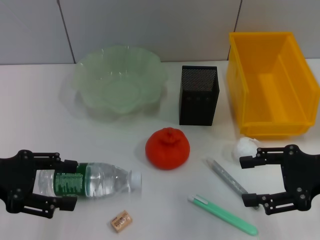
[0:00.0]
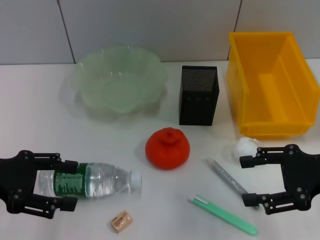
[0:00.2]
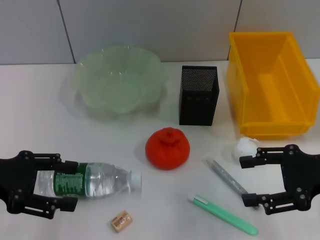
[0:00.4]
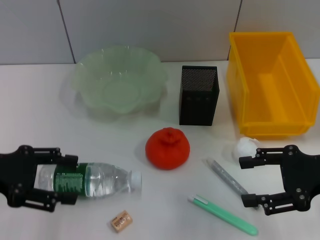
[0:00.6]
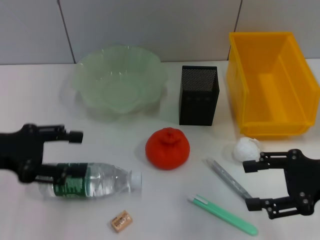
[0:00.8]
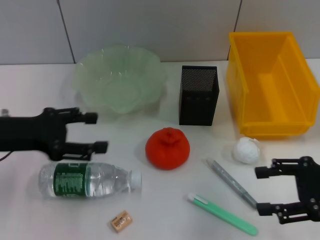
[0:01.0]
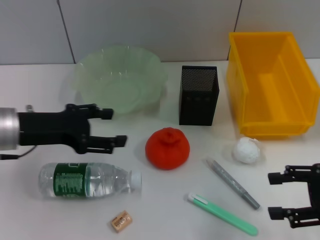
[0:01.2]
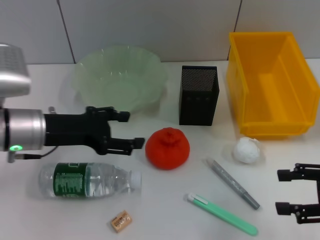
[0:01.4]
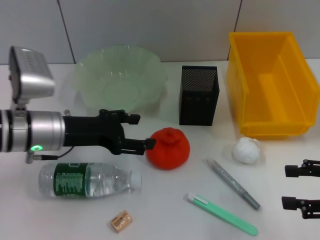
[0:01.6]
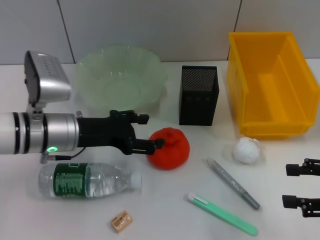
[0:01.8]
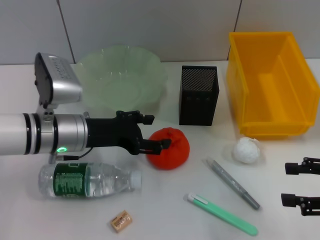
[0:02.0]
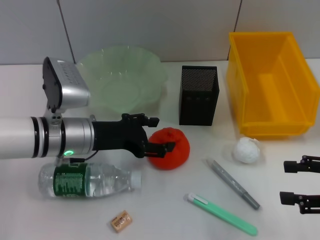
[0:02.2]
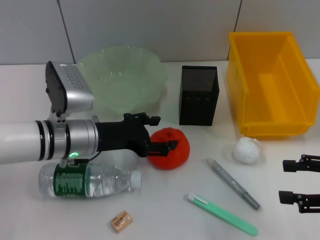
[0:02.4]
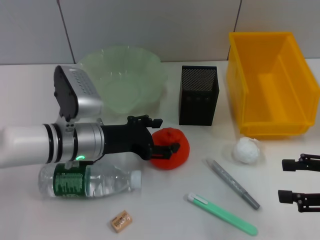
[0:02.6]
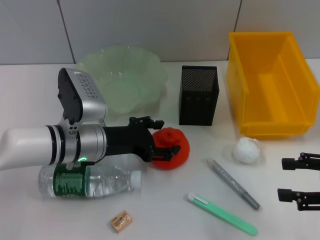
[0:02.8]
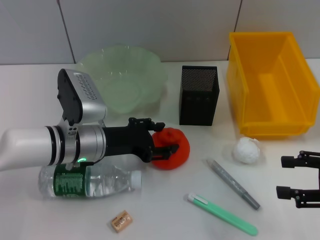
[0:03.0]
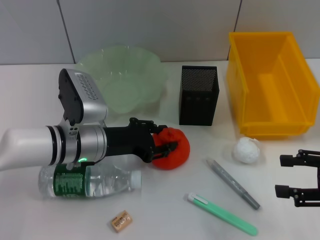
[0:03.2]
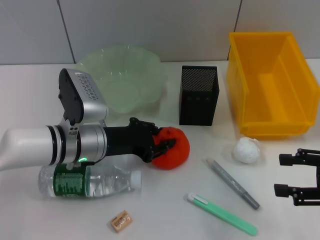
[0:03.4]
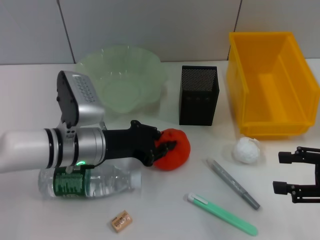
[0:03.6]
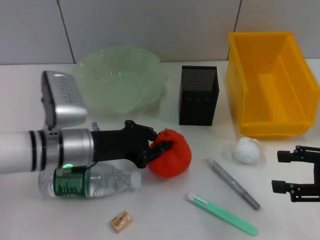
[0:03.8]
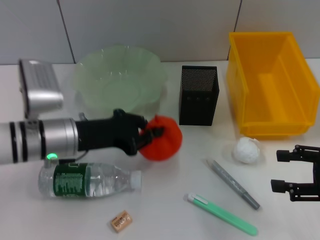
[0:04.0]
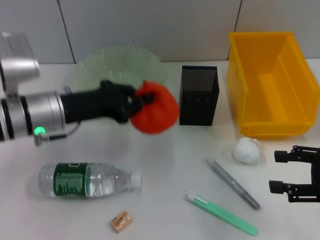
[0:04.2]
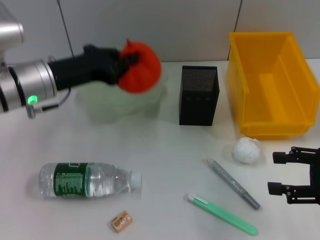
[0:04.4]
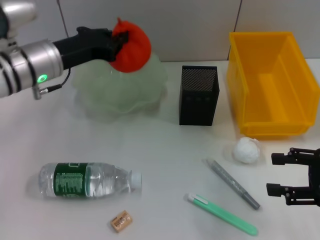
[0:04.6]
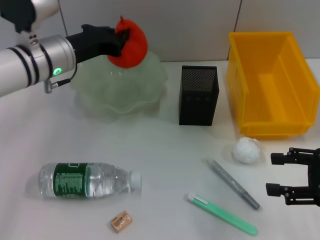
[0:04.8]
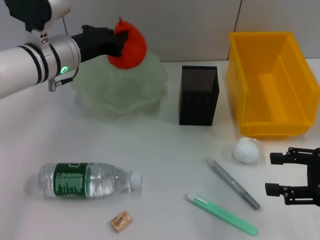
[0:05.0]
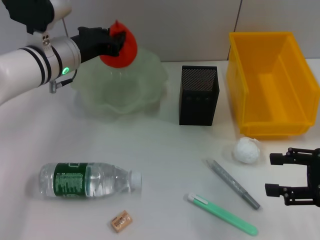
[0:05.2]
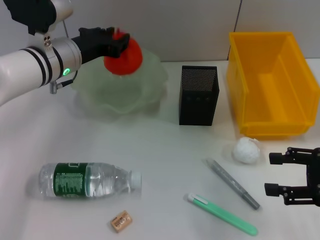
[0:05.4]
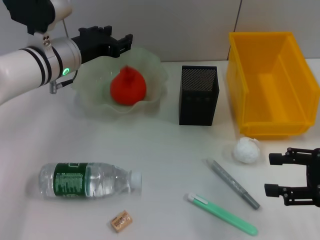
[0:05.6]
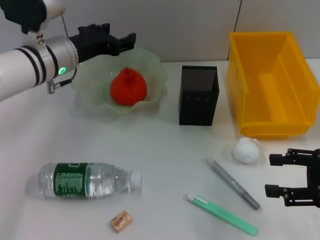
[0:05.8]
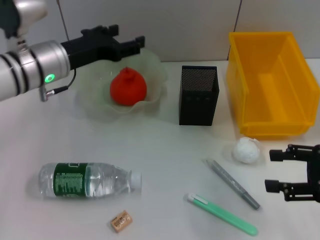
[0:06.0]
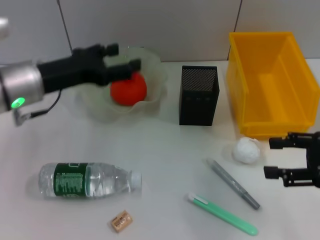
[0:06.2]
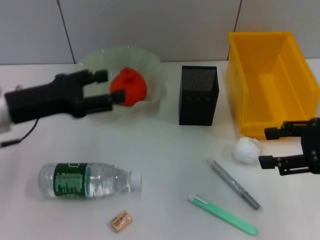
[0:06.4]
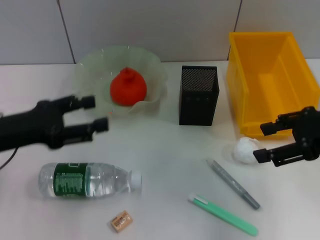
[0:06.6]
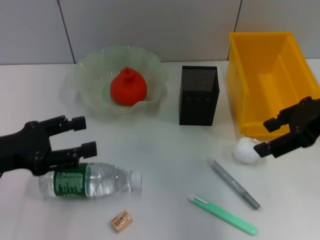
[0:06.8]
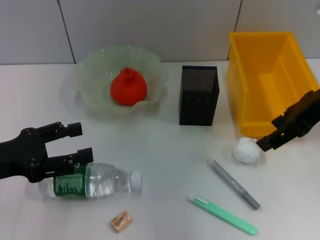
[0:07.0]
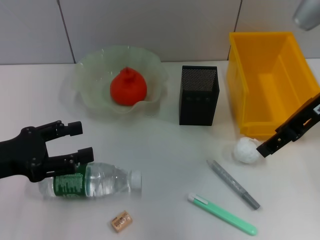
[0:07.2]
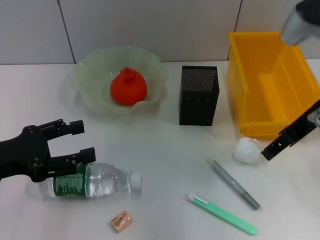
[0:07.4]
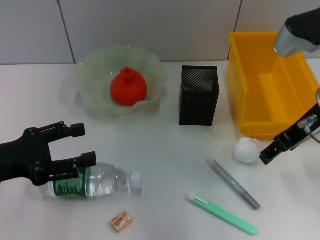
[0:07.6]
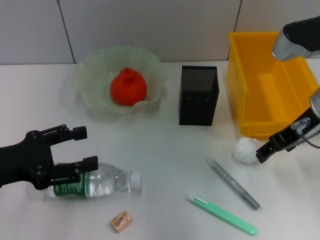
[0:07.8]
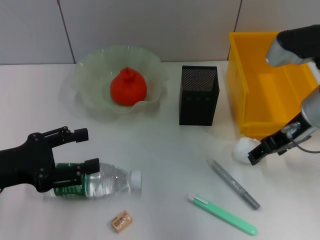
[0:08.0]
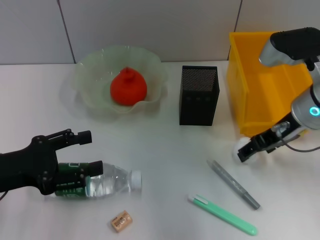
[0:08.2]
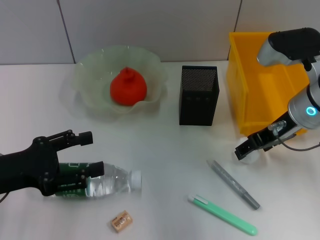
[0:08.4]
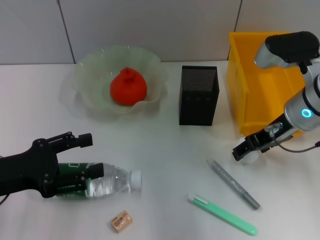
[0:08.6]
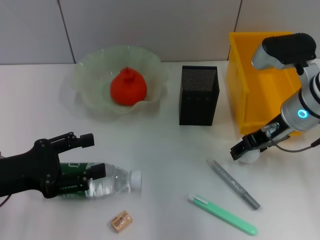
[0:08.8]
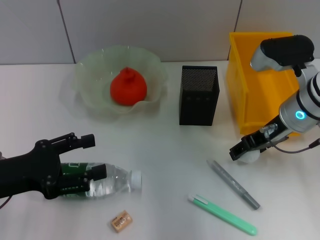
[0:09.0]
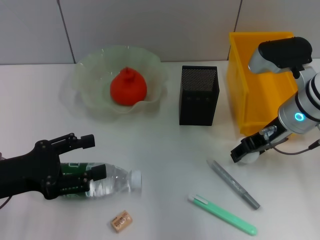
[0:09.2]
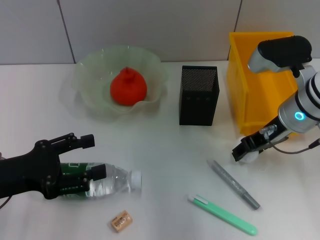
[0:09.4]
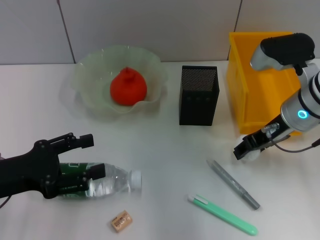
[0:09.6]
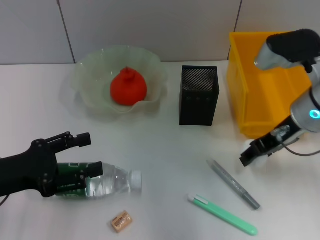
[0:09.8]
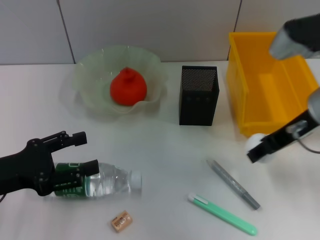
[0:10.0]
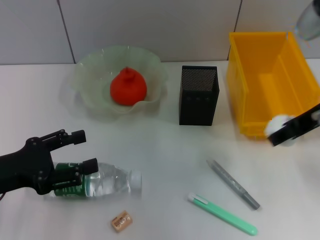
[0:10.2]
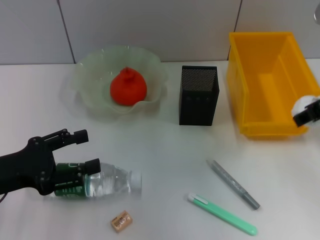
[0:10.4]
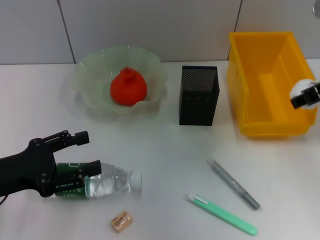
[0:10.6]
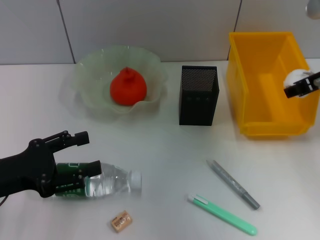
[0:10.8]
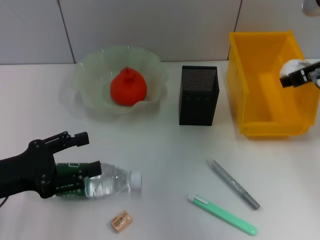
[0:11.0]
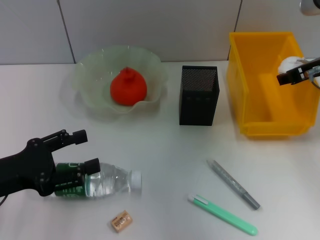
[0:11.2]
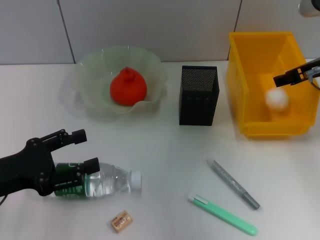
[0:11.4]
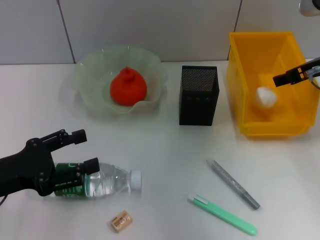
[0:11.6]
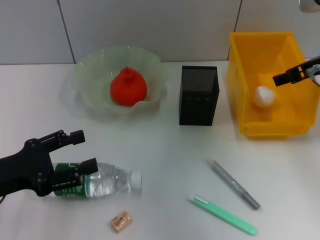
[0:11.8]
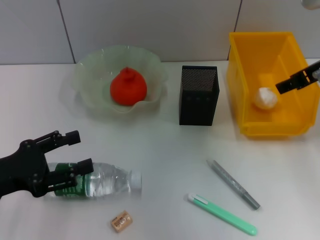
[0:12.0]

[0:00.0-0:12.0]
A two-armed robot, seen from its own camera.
Step, 0:00.0 to 0:03.4: Grab the orange with the left hand.
Step, 0:03.6 to 0:05.6: Place the orange into the fruit bowl with the left hand.
Step, 0:05.8 to 0:09.2: Grab the paper ball with the right hand.
Step, 0:09.4 to 0:11.6: Place the paper ball into the trash can with the right hand.
0:00.0 to 0:01.6: The right gripper travels to the right by some 5 cm. The left gripper is displaced to the right and forward by some 15 cm.
0:01.6 to 0:03.0: The left gripper shifts about 5 cm to the right.
0:03.0 to 0:04.4: The left gripper travels upward and to the left by roughly 10 cm, and closes up.
0:04.4 to 0:06.0: The left gripper moves some 5 cm, and opens up.
0:06.0 to 0:07.6: The right gripper shifts some 15 cm to the left, forward and upward; the left gripper goes some 20 cm backward and to the left.
0:07.6 to 0:09.0: The right gripper goes some 5 cm downward.
0:09.0 to 0:10.4: The right gripper is displaced upward and backward by about 15 cm.
0:10.4 to 0:12.0: The right gripper opens up.

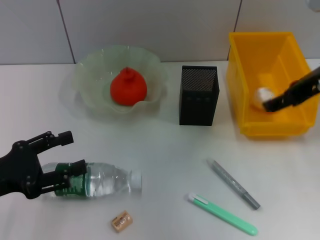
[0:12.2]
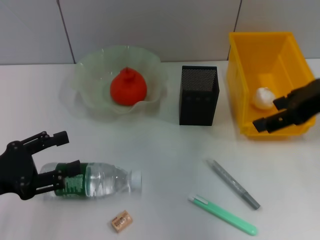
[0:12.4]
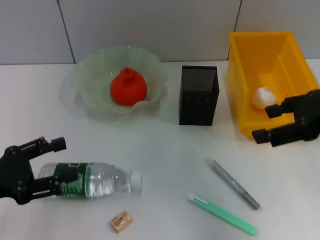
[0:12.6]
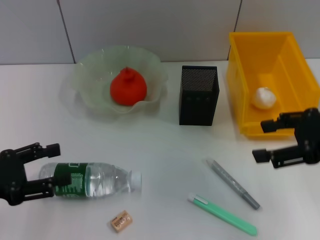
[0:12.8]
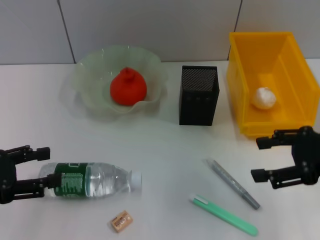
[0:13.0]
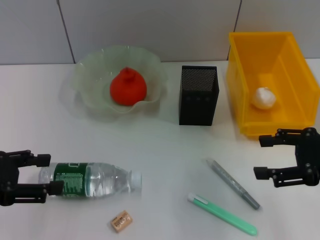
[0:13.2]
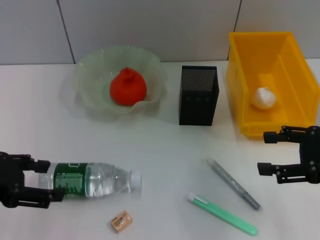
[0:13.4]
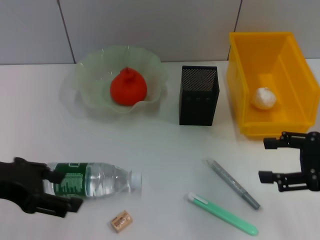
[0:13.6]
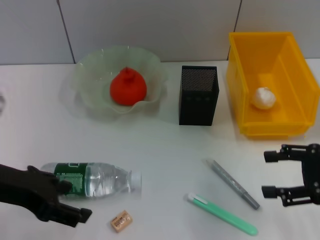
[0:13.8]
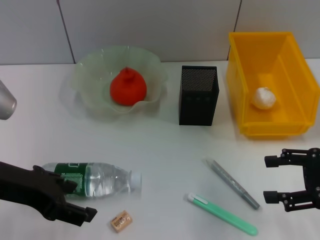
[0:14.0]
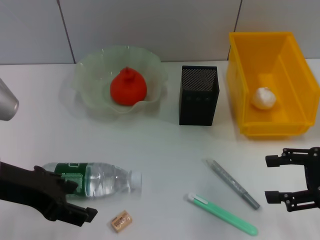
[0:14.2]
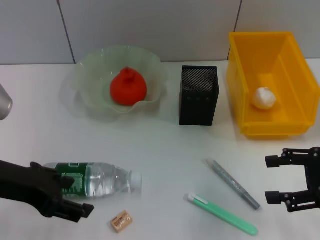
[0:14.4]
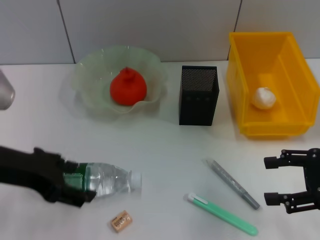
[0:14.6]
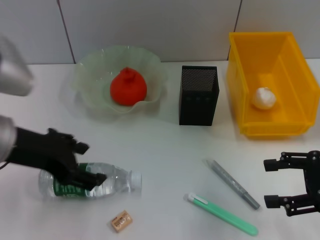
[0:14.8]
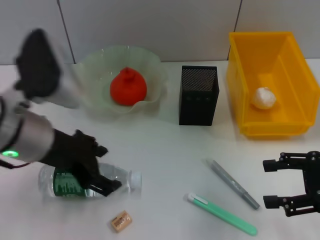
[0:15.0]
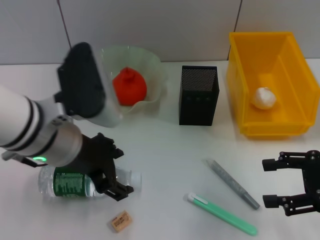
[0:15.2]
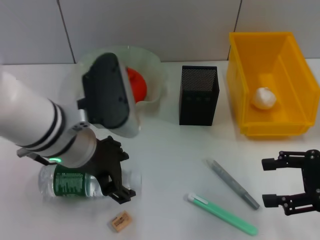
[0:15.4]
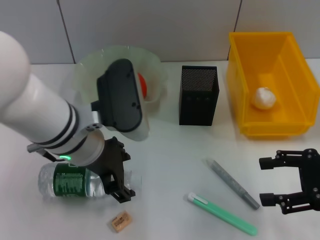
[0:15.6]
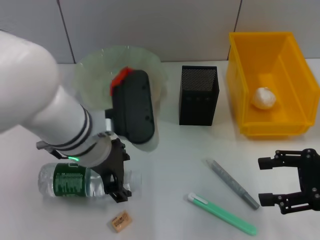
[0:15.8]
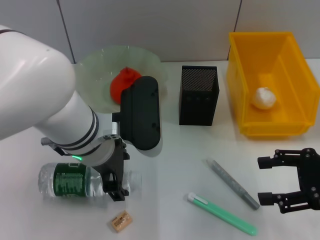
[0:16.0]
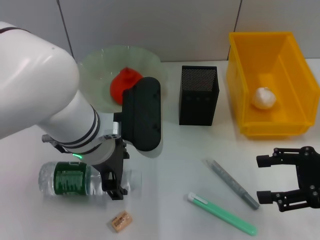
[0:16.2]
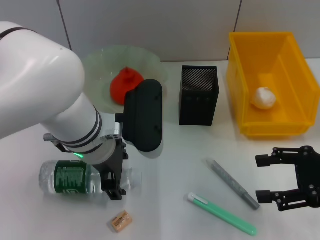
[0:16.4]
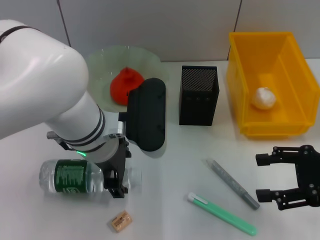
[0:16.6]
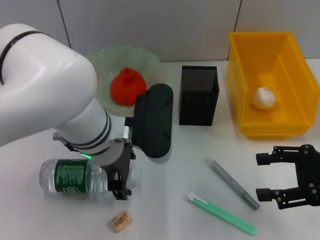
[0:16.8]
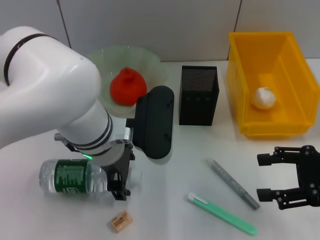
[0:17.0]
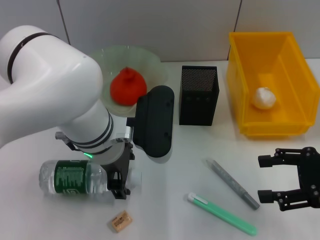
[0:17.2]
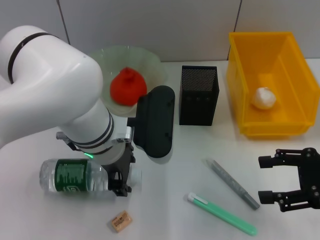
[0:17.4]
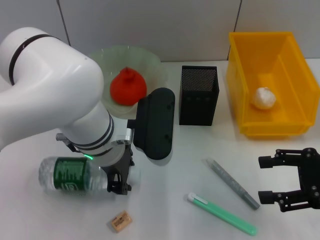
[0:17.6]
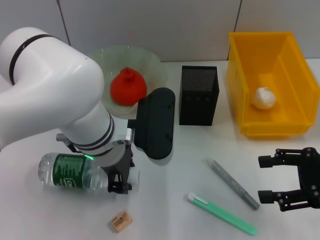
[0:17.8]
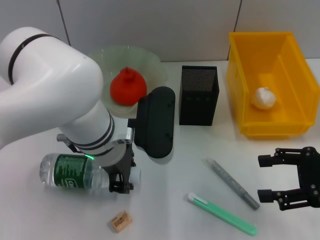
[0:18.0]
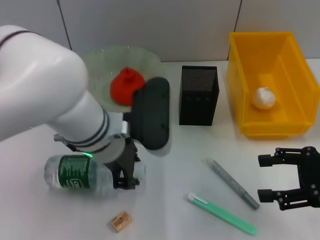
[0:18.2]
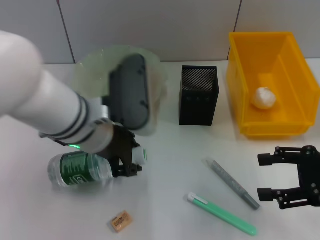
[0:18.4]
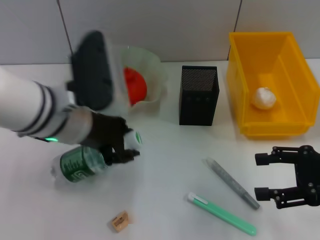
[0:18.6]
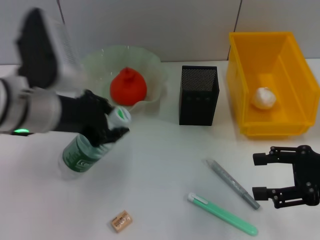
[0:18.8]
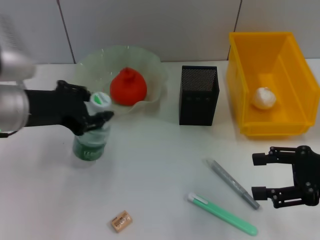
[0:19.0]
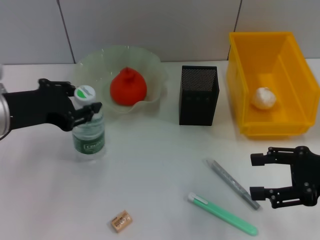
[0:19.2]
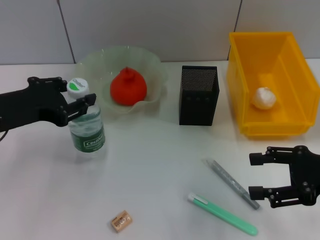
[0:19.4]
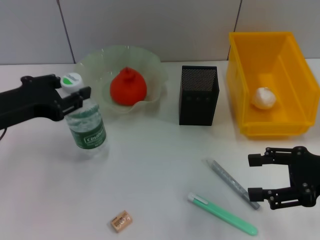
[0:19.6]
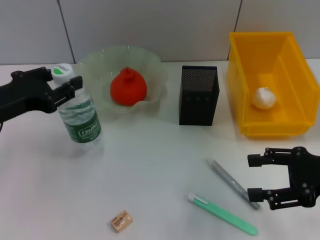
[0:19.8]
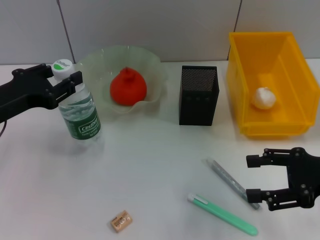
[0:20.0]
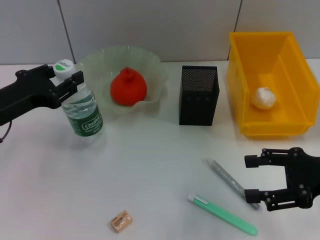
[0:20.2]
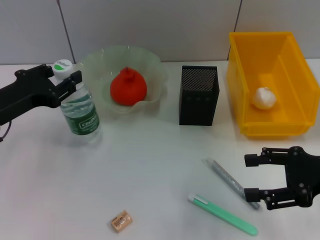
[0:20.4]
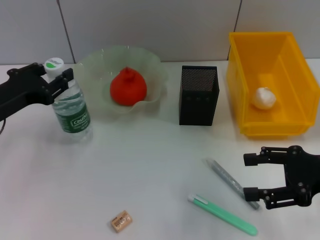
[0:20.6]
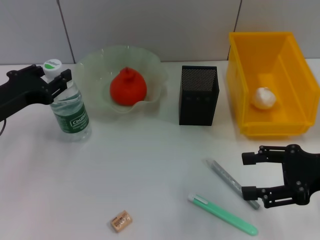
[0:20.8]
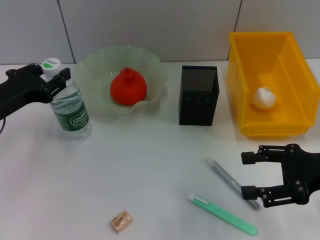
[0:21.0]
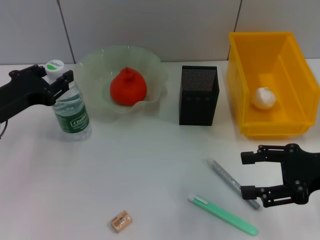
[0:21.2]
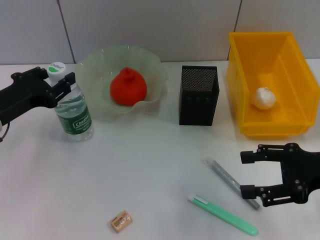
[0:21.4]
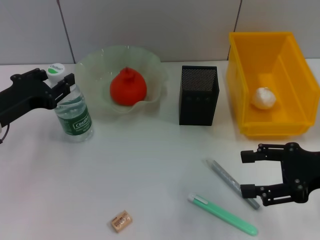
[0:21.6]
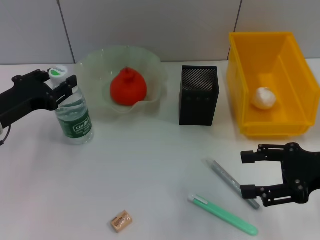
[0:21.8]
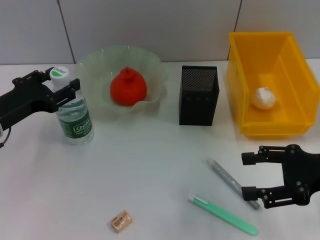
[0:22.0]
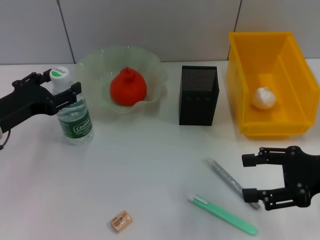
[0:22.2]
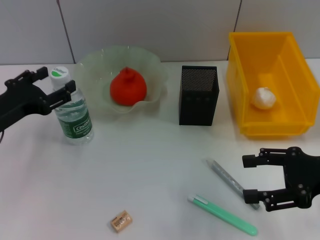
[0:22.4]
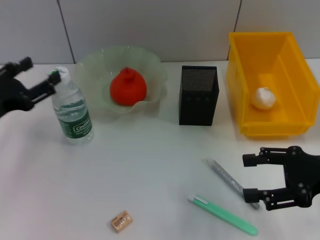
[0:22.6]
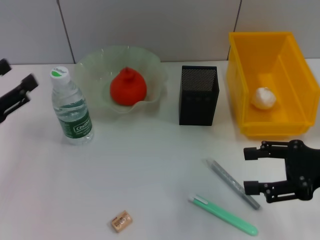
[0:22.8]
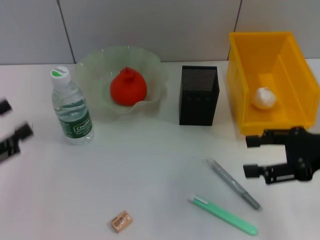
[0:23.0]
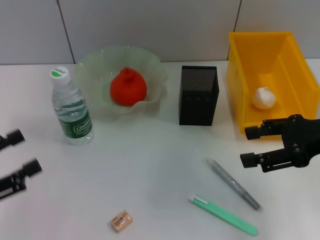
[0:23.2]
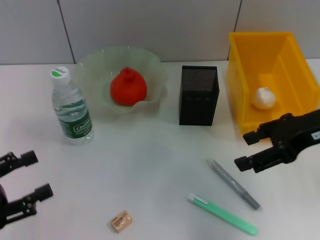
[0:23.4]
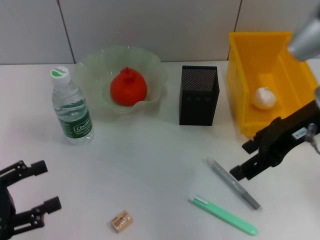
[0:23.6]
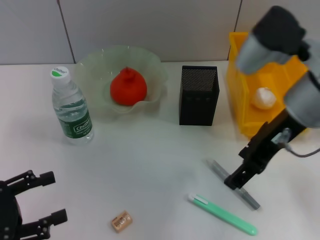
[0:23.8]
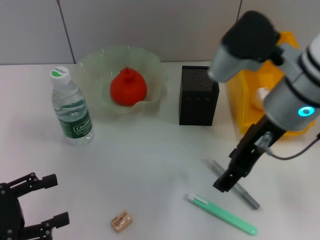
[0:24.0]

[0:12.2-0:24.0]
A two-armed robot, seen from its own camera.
Step, 0:12.2 to 0:17.8: Grab the water bottle with the left hand.
Step, 0:18.0 to 0:22.2: Place the water bottle on the table with the left hand.
0:12.2 to 0:13.6: The left gripper is displaced upward by about 10 cm; the right gripper is displaced downward, to the right and backward by some 15 cm.
0:13.6 to 0:15.2: The left gripper shifts approximately 10 cm to the right.
0:15.2 to 0:16.6: The left gripper shifts some 5 cm to the right.
0:16.6 to 0:18.2: The left gripper closes.
0:18.2 to 0:19.6: The left gripper travels to the left by approximately 15 cm.
0:19.6 to 0:21.0: The left gripper changes place by roughly 5 cm.
0:21.0 to 0:22.6: The left gripper opens up.
0:22.6 to 0:24.0: The right gripper shifts roughly 20 cm to the left and upward, while the left gripper heads backward, covering about 10 cm.
